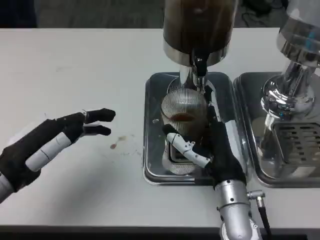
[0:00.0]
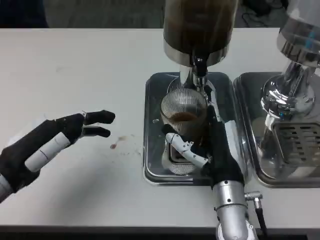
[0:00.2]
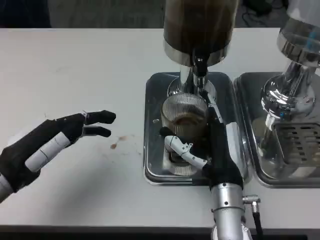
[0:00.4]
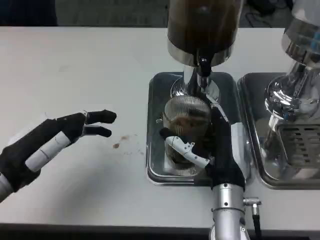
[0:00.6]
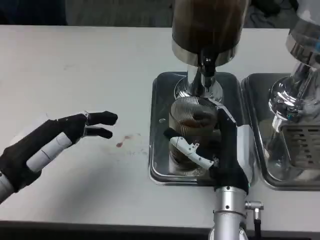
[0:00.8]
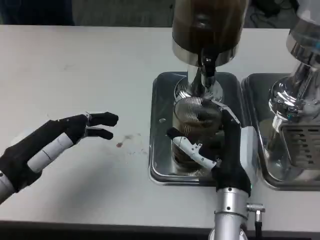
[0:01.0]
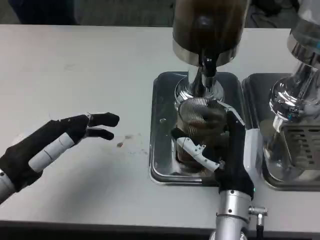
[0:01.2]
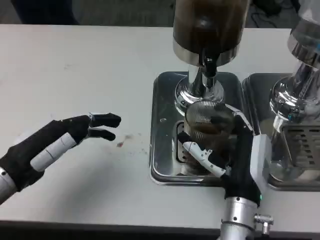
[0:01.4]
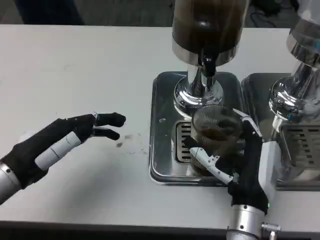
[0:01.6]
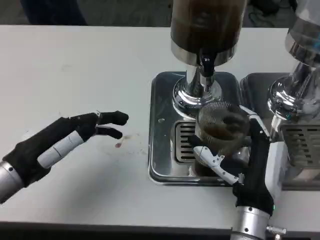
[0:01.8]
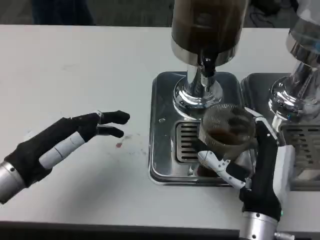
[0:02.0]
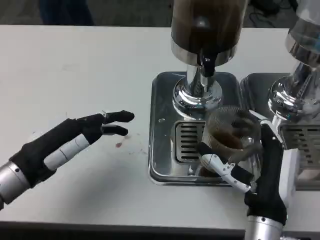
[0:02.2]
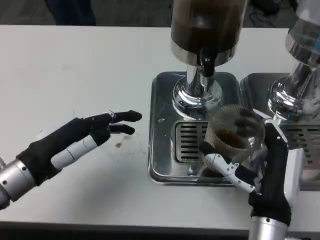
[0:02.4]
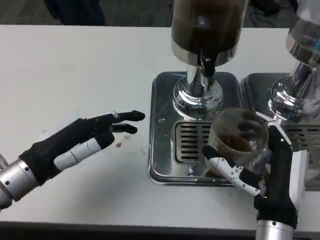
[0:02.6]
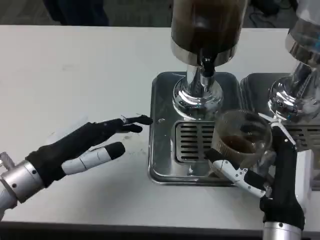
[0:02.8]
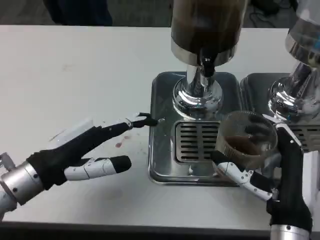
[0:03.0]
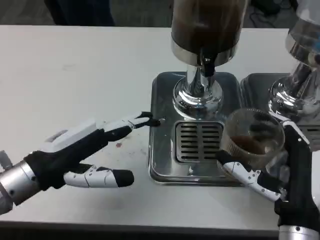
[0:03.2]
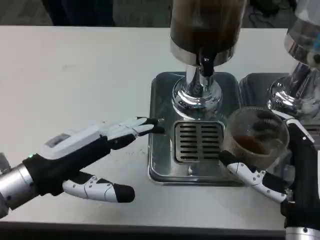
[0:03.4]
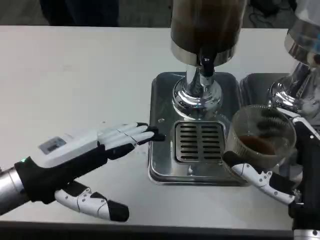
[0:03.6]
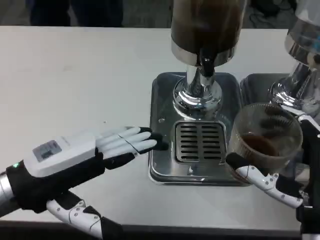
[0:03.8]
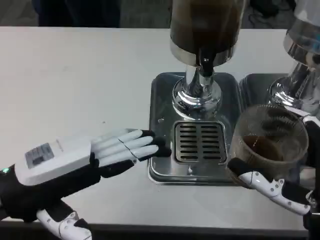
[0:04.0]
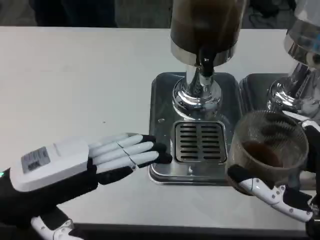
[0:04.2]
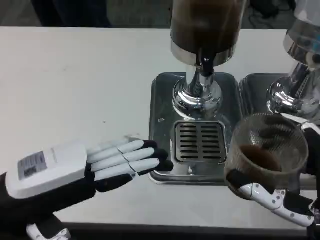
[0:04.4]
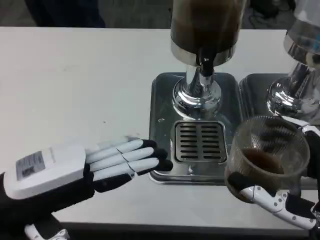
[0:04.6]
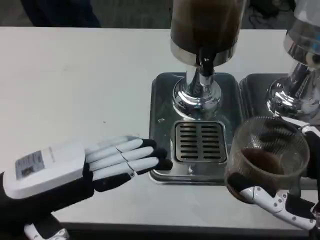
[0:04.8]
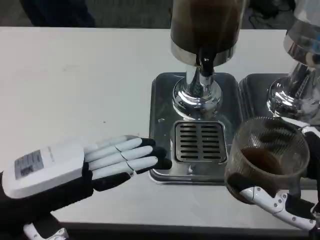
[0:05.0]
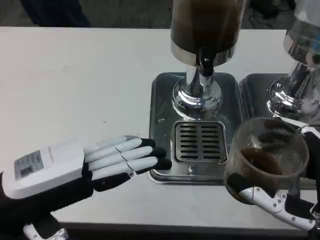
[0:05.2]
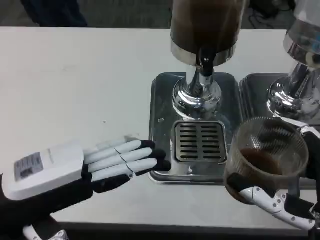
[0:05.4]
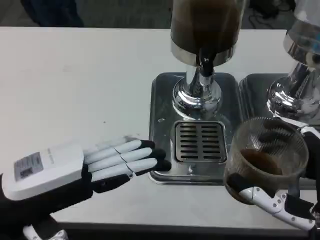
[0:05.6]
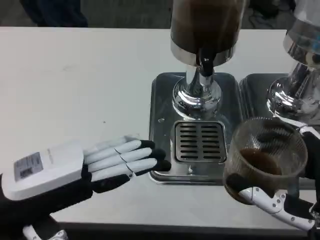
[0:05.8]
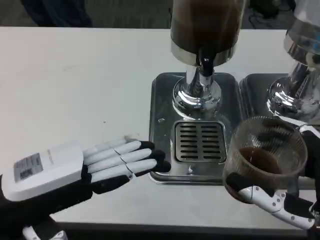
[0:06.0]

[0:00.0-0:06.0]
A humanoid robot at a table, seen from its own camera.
Task of the whole recording: Grasp the cup under the faucet to collect the drink, then remove the cup.
0:01.6 to 0:03.0: The right hand changes place by some 5 cm.
0:03.0 to 0:04.4: Both hands move upward and backward, some 10 cm.
0:04.4 to 0:06.0: Both hands stay about where they are.
